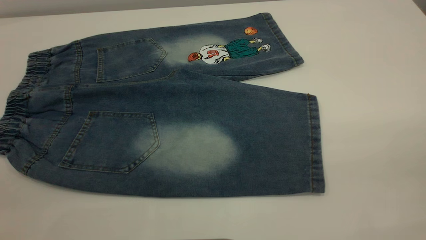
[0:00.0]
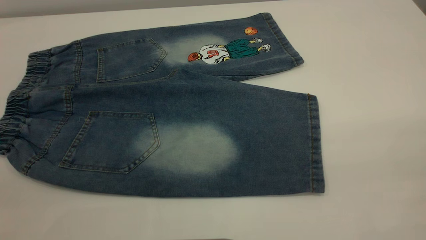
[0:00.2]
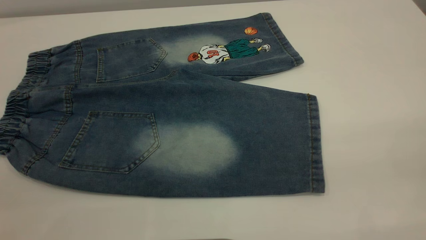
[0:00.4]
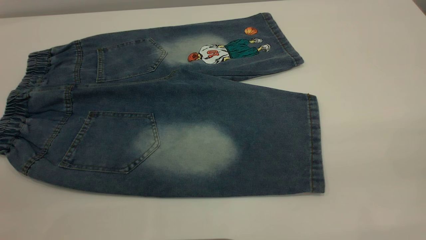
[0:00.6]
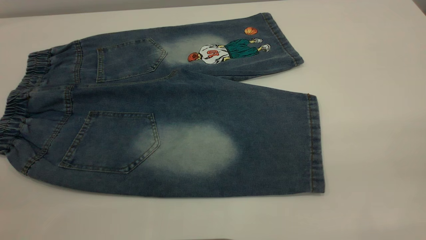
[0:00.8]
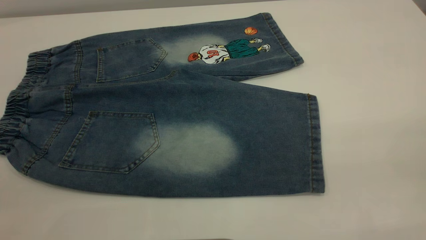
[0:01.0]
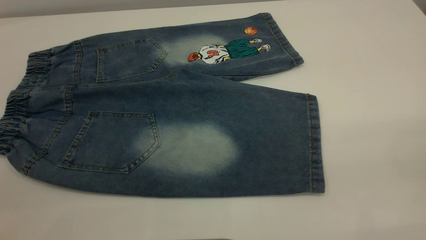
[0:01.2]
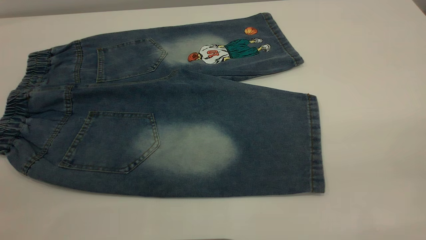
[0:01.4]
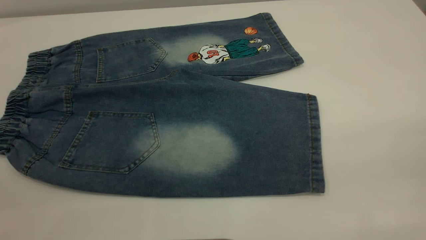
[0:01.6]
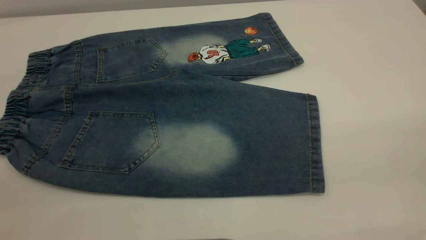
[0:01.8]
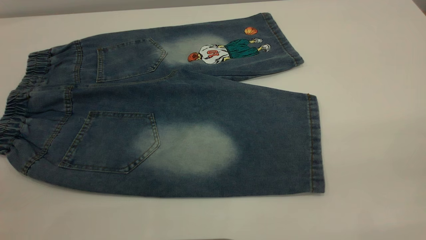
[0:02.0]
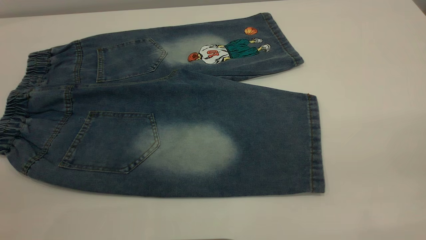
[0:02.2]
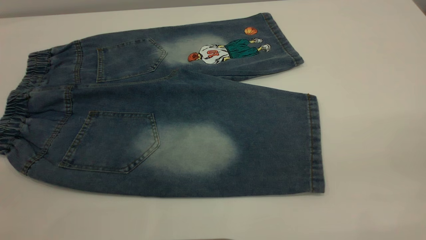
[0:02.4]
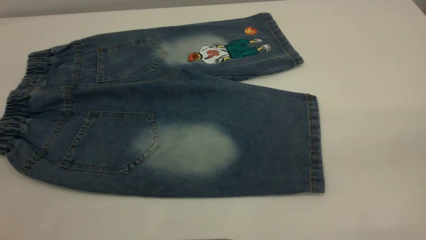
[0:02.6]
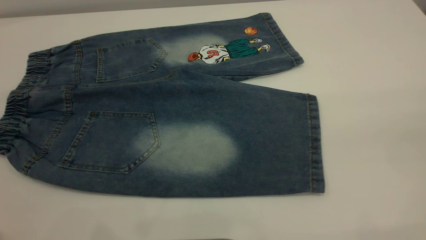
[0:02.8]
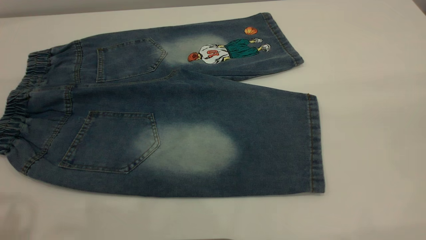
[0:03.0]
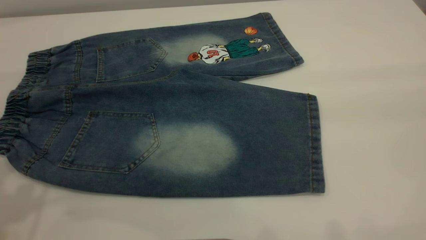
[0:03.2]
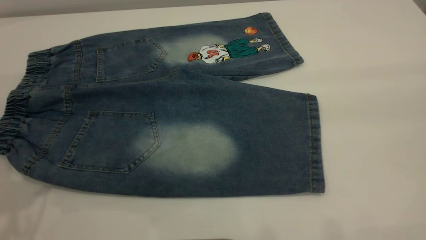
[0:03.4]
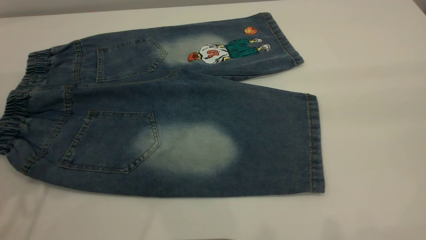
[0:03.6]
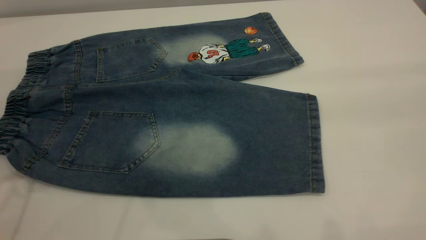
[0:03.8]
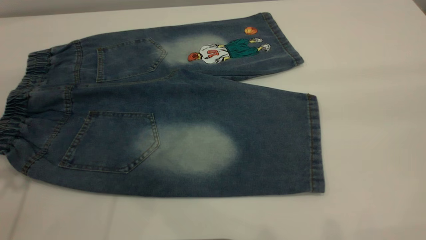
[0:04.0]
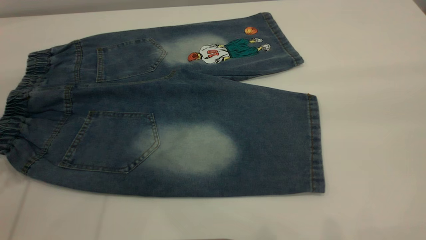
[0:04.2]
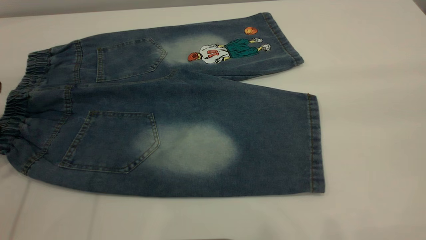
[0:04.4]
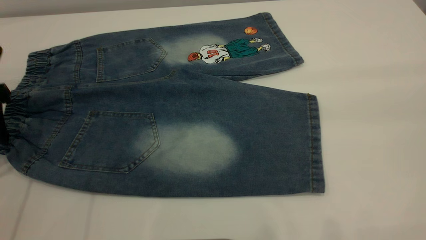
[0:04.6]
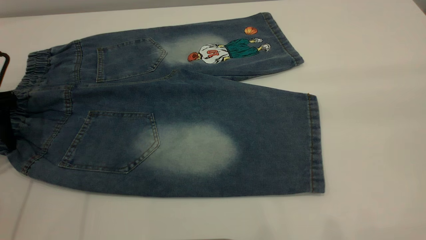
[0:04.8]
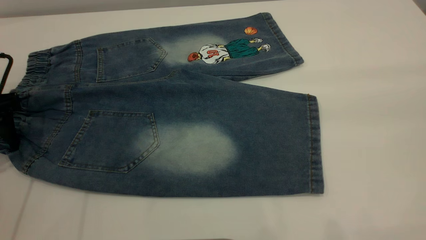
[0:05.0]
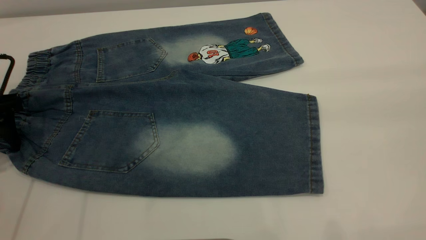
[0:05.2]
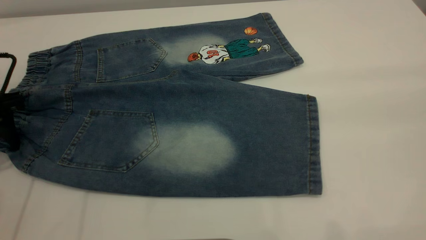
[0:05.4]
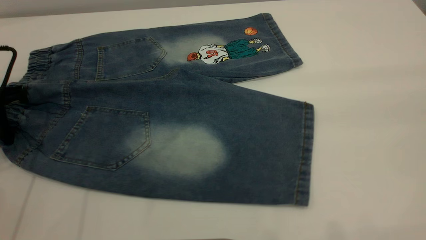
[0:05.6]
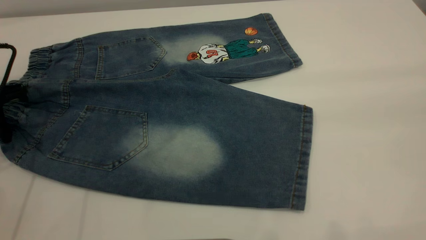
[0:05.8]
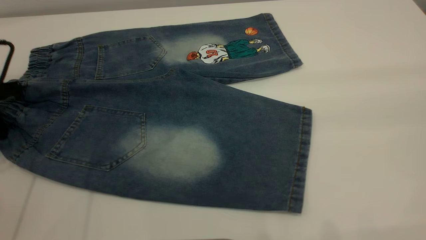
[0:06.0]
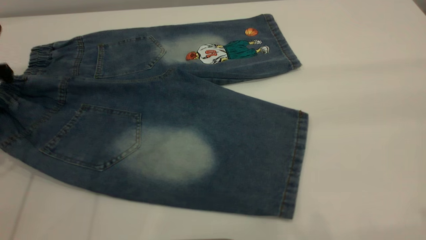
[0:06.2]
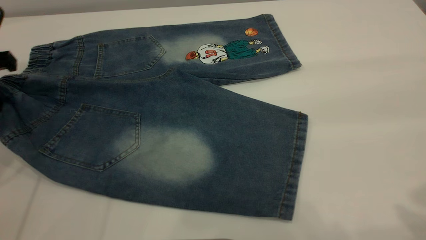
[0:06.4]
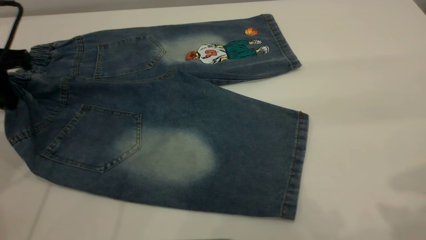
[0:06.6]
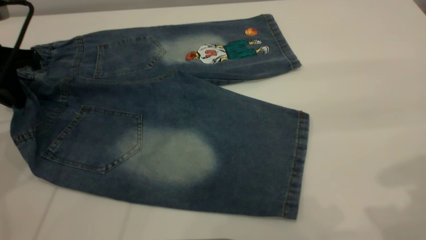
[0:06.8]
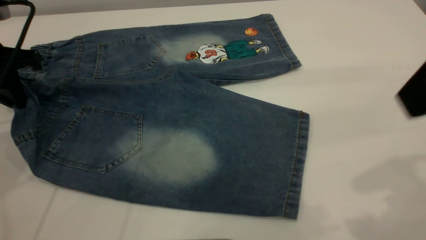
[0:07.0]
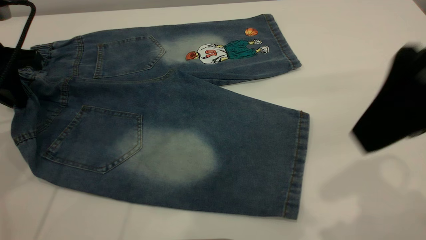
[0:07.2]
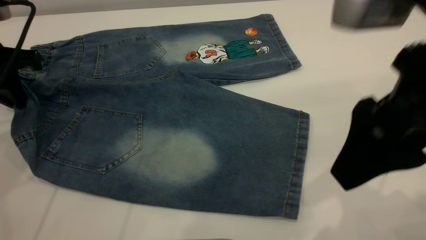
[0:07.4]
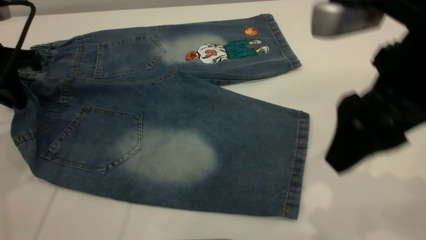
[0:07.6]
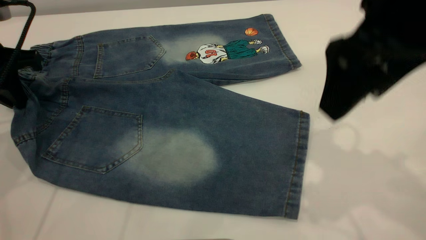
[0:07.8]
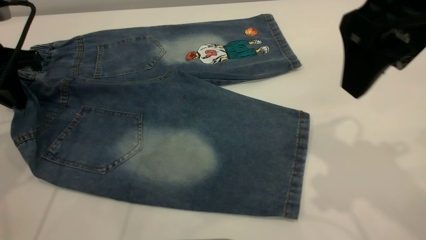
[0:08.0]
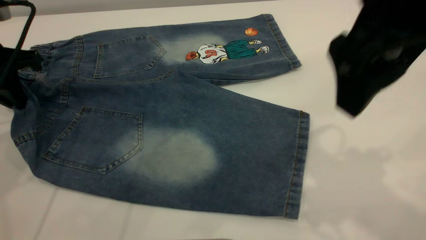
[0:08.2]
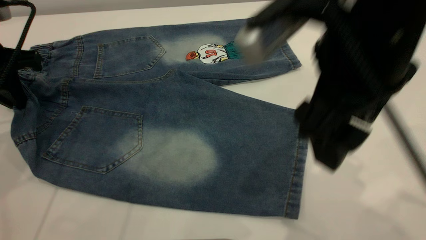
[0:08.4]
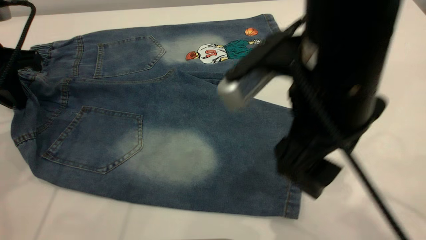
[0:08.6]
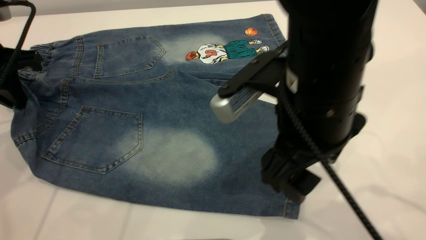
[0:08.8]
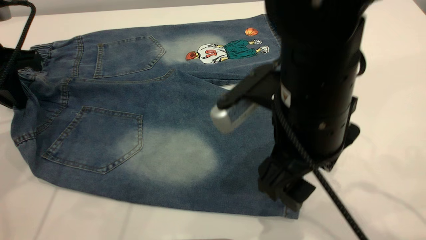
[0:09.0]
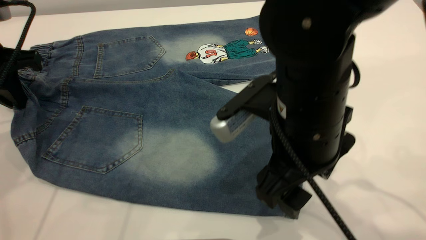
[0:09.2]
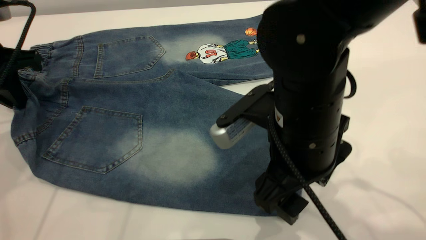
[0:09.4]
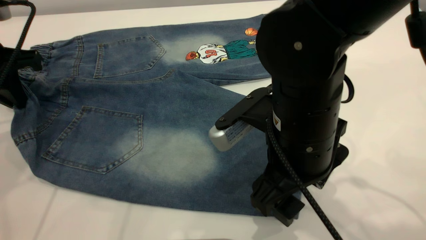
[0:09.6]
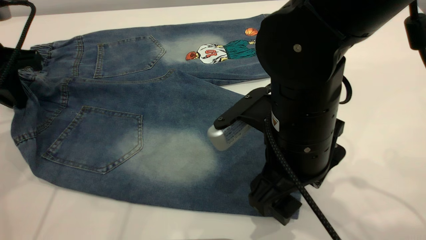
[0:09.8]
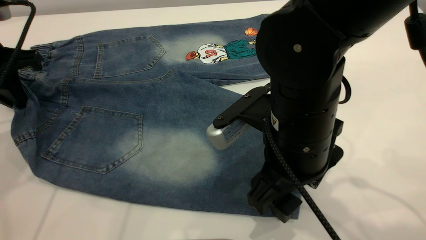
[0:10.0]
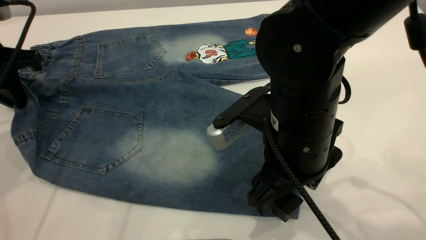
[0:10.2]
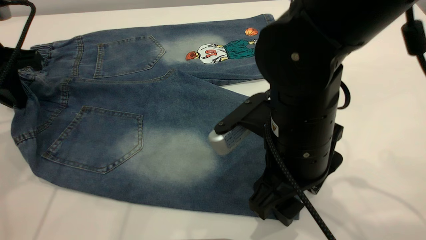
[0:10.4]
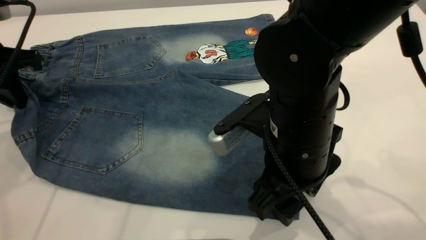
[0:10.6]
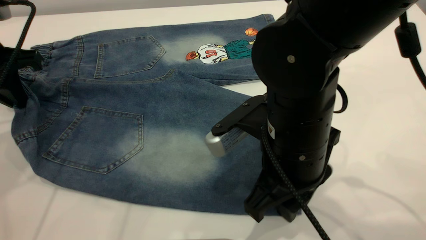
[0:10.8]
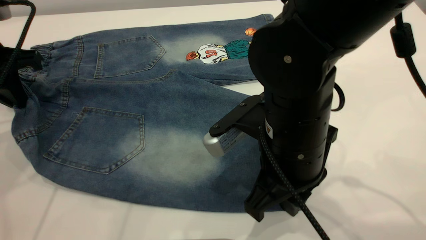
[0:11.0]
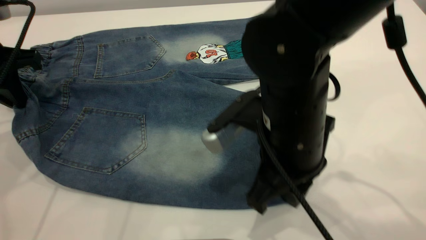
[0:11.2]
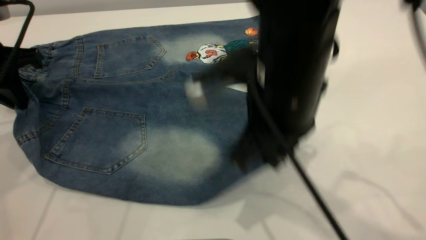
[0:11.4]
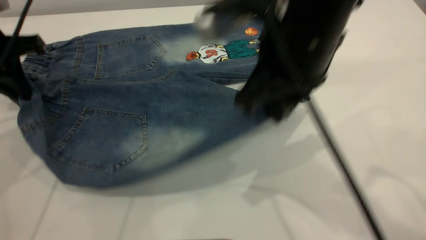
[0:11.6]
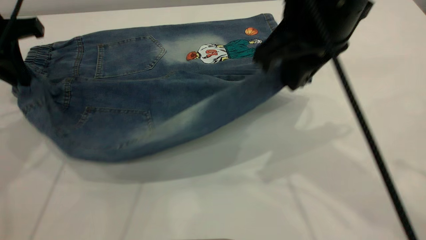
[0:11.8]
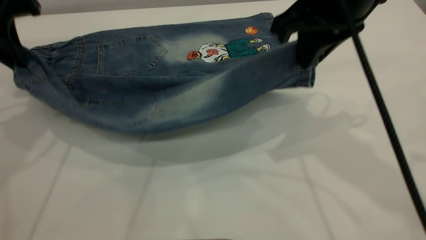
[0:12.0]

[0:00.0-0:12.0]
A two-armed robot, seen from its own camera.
0:00.0 to 0:01.6: Both grippers stay about where they are.
0:04.4 to 0:06.0: The left gripper closes.
0:06.0 to 0:07.6: The right gripper is displaced downward, forward and to the left by about 20 cm; the left gripper travels to the right by approximately 5 cm.
0:07.6 to 0:09.0: The right gripper is displaced downward and to the left by some 10 cm.
0:09.0 to 0:10.4: The grippers make only small movements.
0:10.4 to 0:12.0: The right gripper heads upward, forward and to the right, covering about 15 cm, and closes. The left gripper is displaced upward by approximately 5 cm.

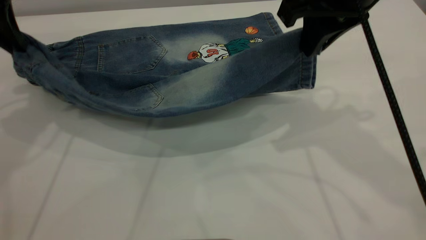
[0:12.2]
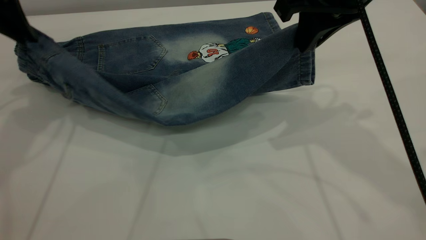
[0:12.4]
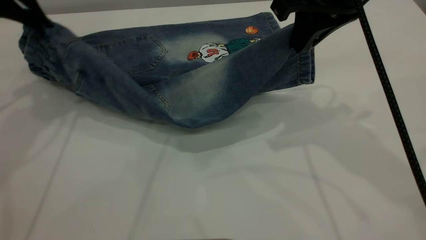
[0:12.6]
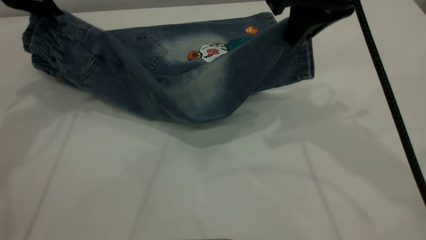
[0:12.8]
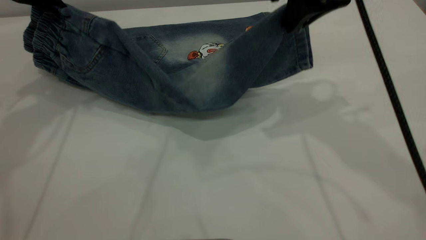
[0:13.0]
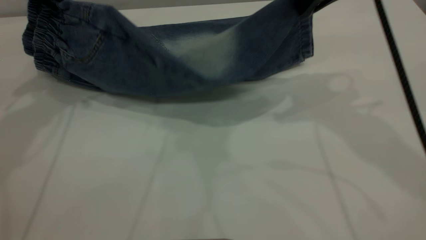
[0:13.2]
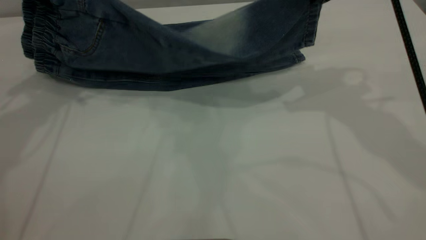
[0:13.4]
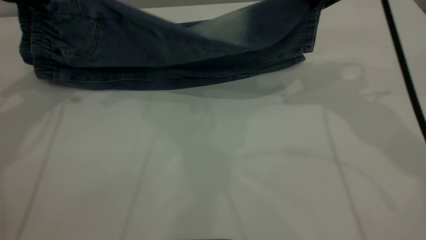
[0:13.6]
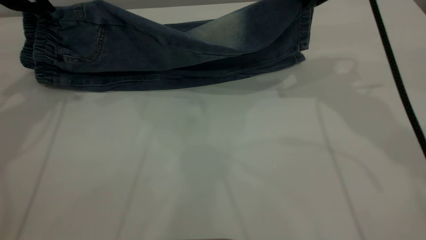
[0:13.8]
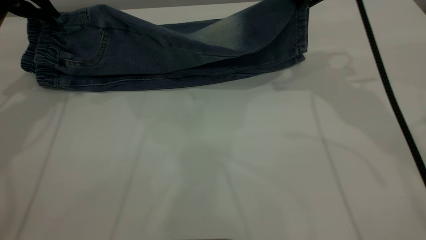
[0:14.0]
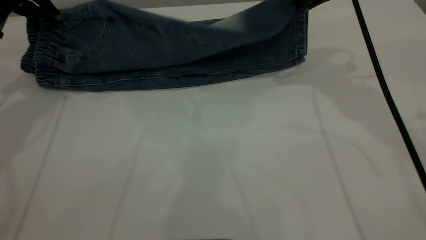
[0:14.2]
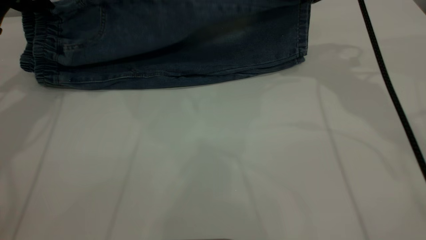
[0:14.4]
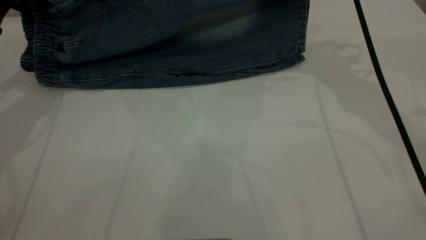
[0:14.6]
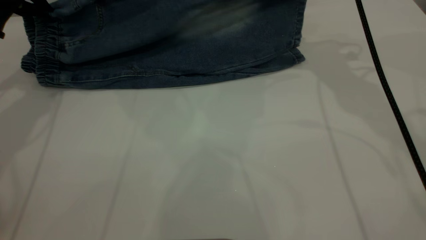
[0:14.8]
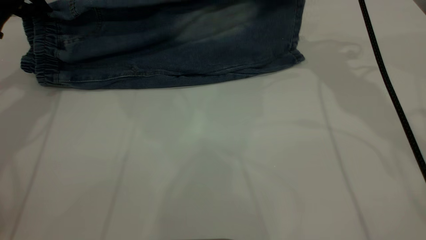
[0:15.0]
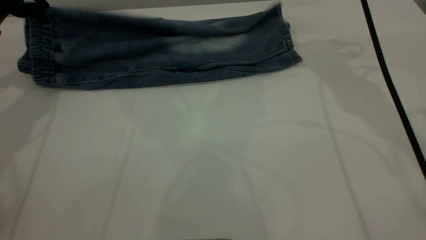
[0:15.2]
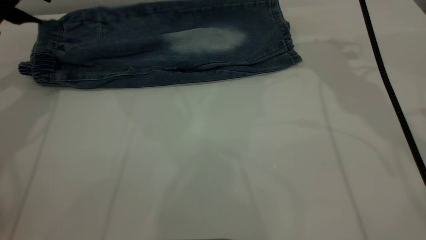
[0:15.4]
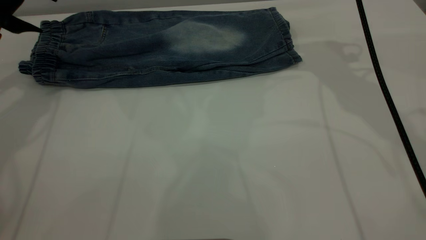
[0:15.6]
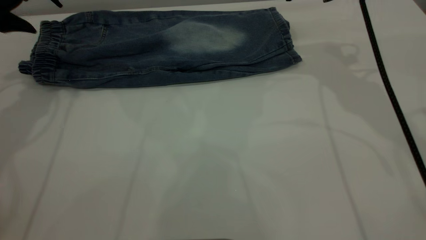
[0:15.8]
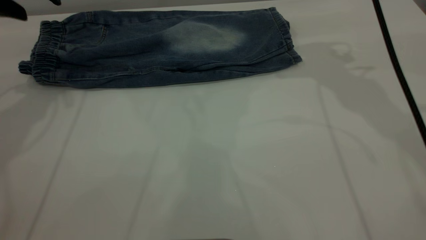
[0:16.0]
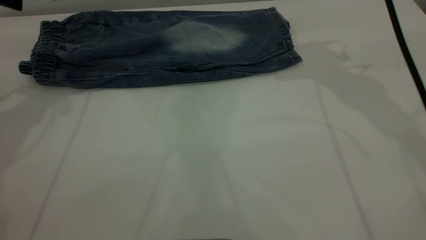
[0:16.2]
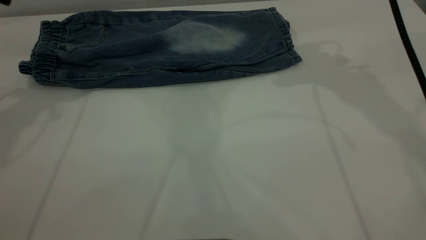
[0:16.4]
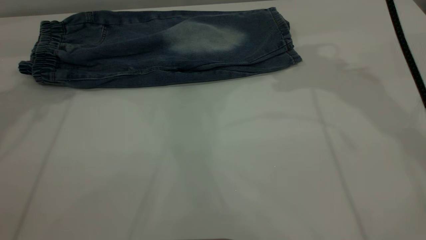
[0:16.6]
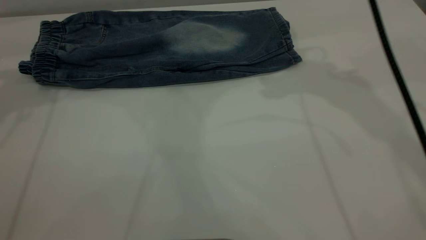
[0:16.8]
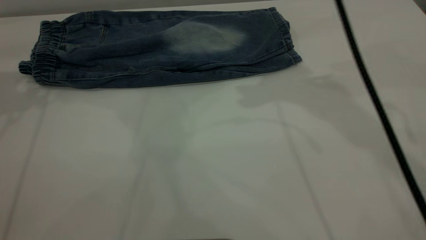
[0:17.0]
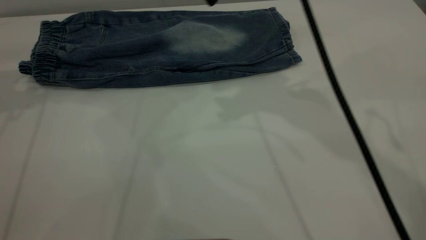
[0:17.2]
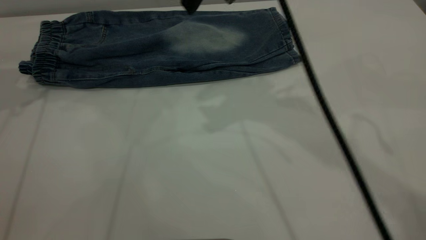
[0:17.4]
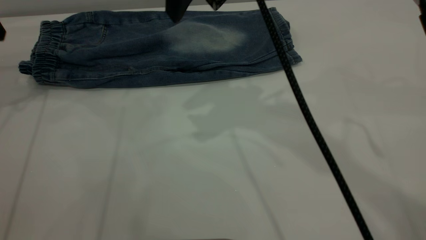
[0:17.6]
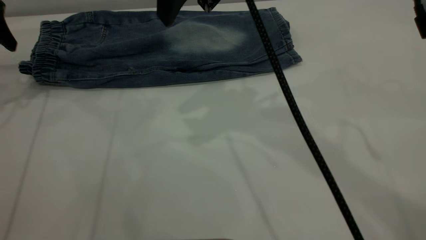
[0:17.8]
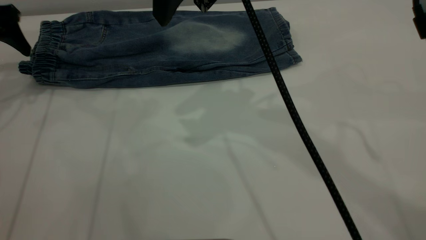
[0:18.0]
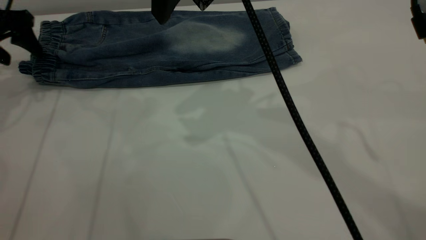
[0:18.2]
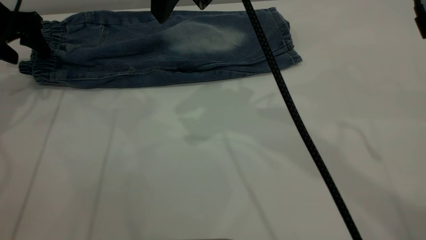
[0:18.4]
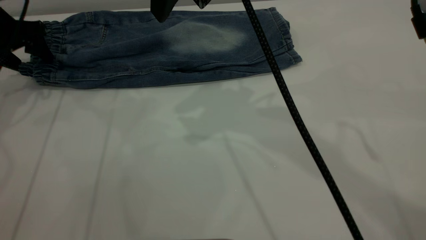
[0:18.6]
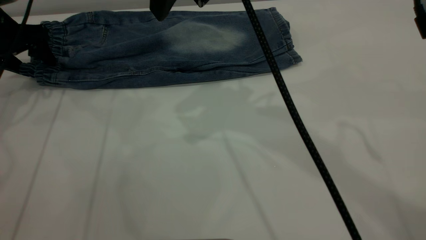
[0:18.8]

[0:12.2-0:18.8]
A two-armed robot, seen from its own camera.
Step, 0:12.2 to 0:15.8: Fold the bottom of the pants upward.
0:12.2 to 0:13.8: The right gripper is displaced forward by roughly 10 cm.
0:13.8 to 0:15.4: The left gripper opens, while the right gripper moves about 5 cm, and opens up.
0:15.4 to 0:17.2: The right gripper goes about 15 cm to the left, upward and backward; the left gripper shifts approximately 10 cm upward and to the left.
0:17.2 to 0:18.8: The right gripper shifts by approximately 5 cm; the left gripper goes about 15 cm downward.
